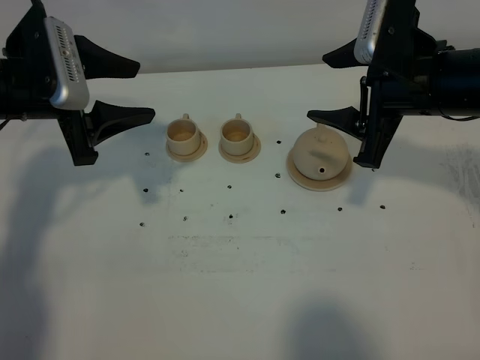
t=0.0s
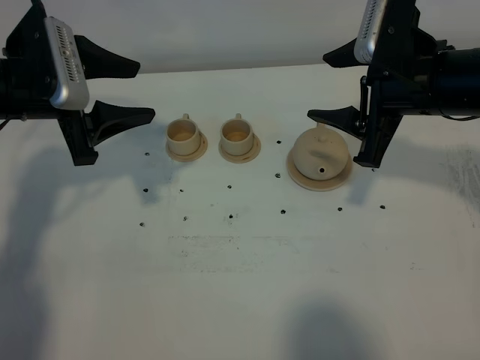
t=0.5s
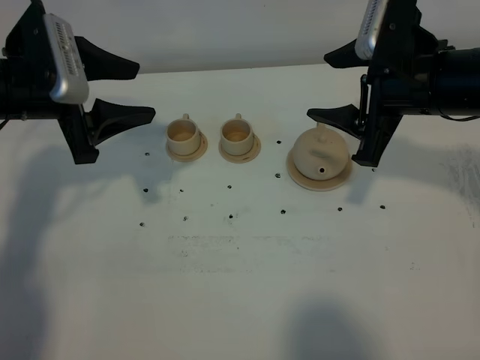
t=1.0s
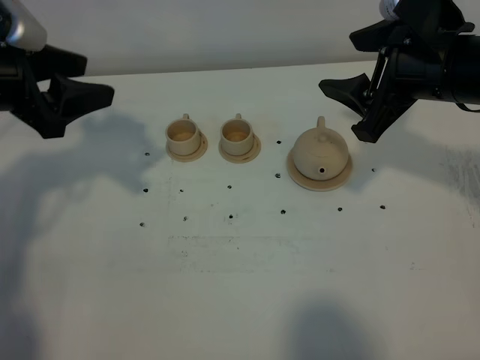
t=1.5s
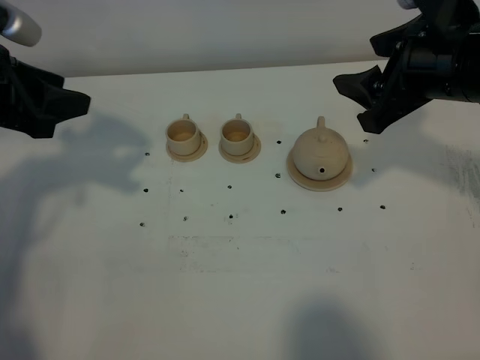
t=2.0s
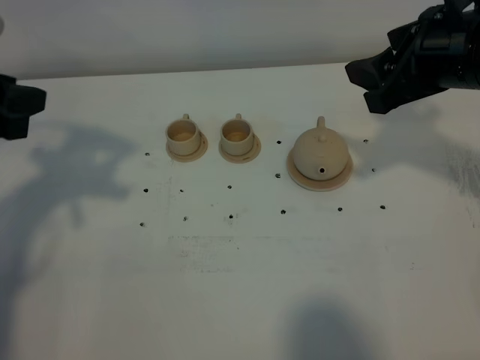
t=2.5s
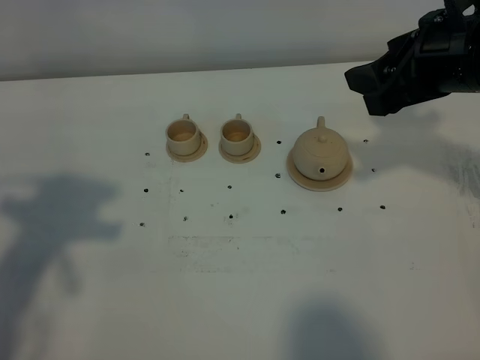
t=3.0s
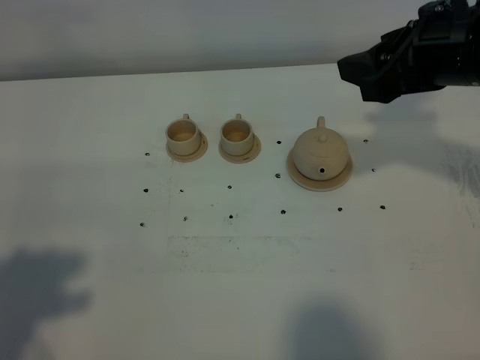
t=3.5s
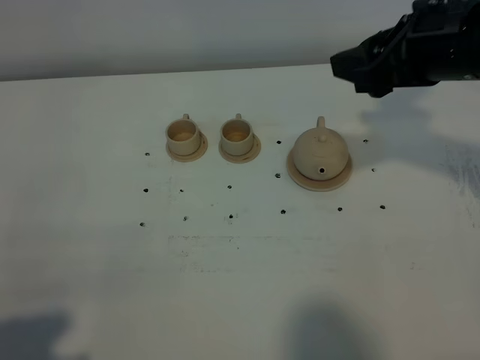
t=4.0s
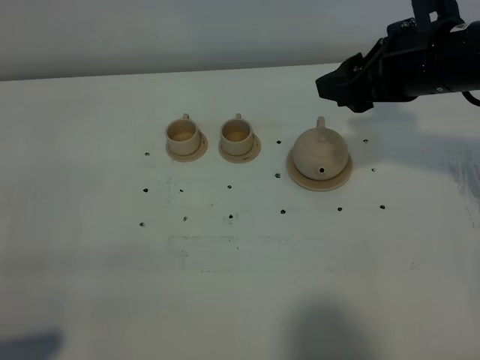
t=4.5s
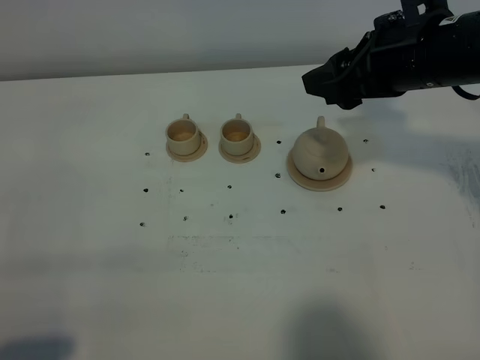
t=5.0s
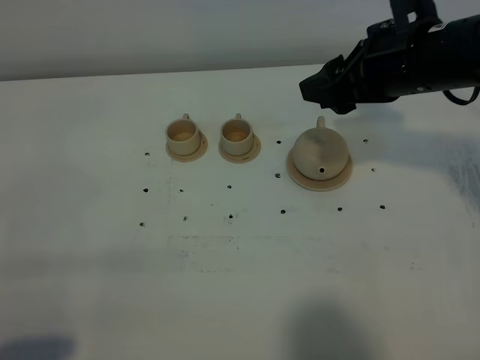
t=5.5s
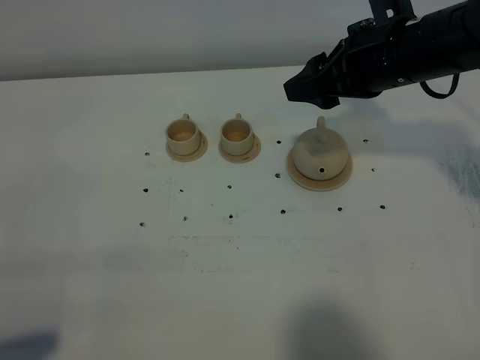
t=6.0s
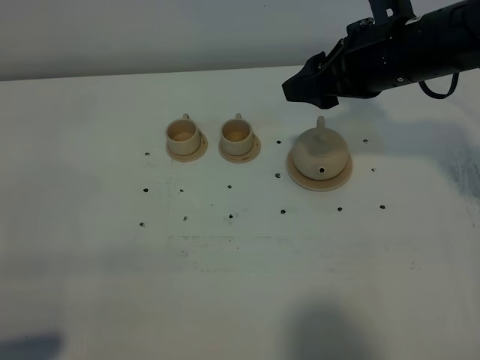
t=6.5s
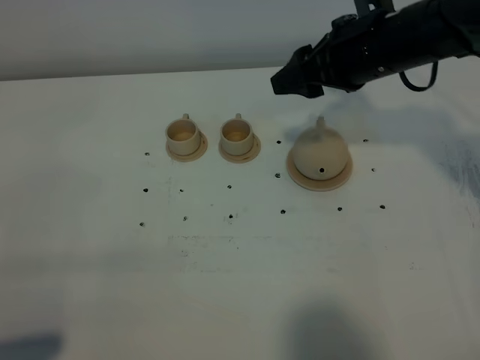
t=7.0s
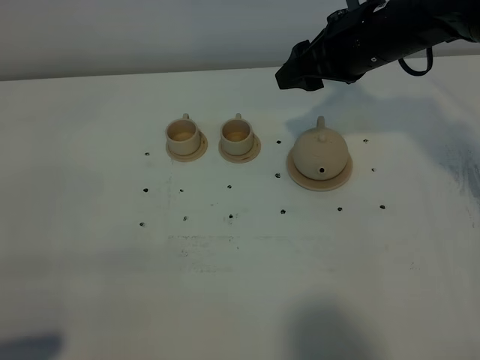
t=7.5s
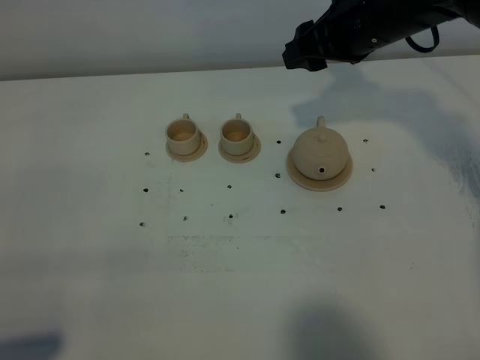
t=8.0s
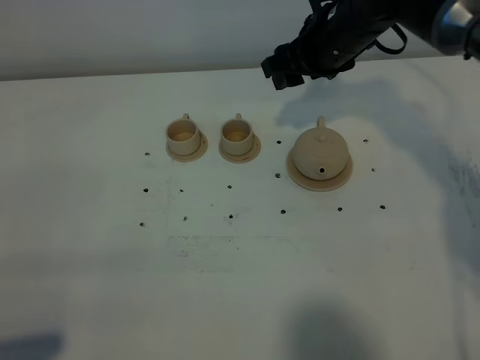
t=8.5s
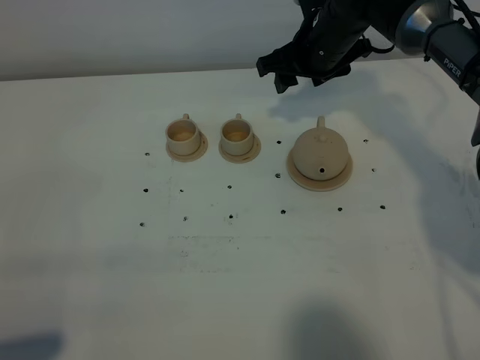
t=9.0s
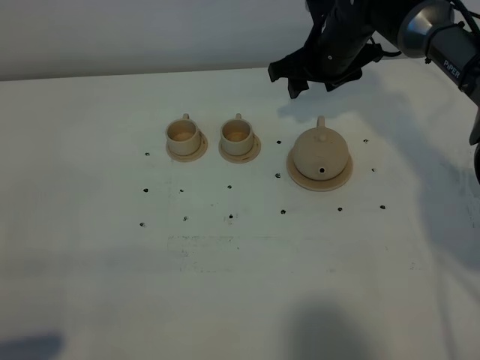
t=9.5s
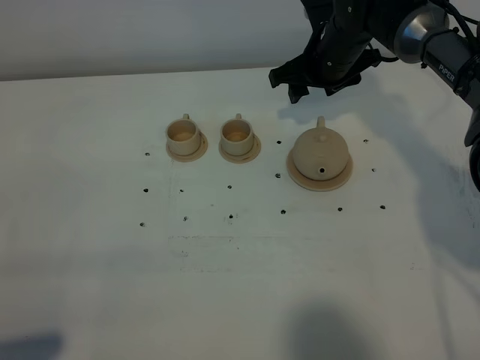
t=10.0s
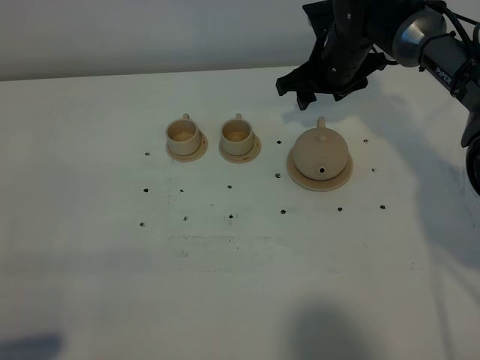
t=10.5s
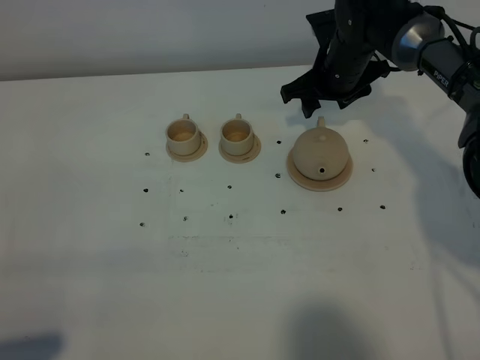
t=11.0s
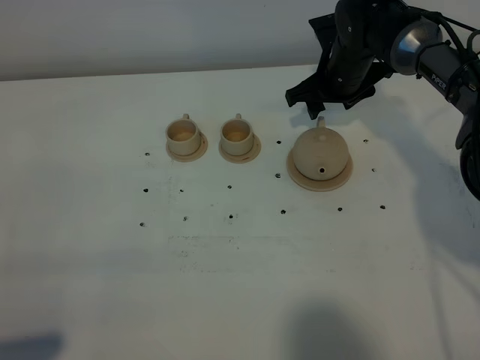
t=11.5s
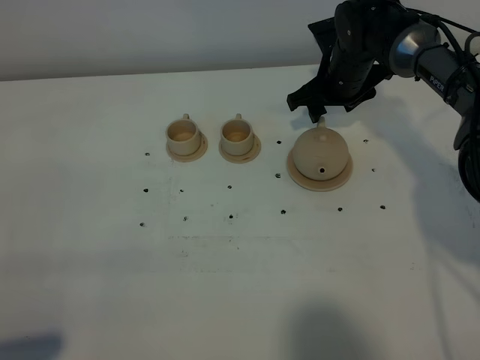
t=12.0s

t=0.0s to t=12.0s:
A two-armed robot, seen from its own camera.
Task of the whole recording: grasp the brown teapot and pour the tea into the two brown teacups one by one, put the brown teapot back in its original place.
t=0.0s to t=2.0s: The left gripper changes place by approximately 5 cm, and closes up.
t=2.0s to t=4.0s: The left gripper is displaced backward by approximately 30 cm, and closes its fingers.
t=4.0s to t=6.0s: The right gripper moves approximately 5 cm.
t=6.0s to t=8.0s: The right gripper travels forward by roughly 5 cm.
t=8.0s to t=10.0s: The right gripper travels downward and forward by roughly 10 cm.
t=10.0s to t=12.0s: The grippers move only a little.

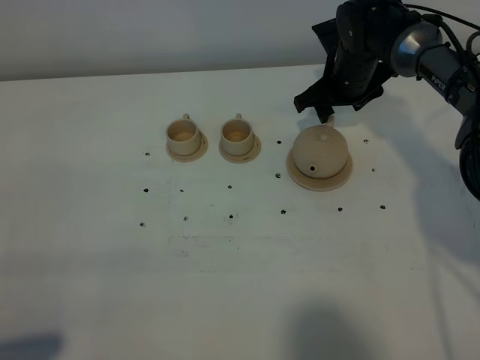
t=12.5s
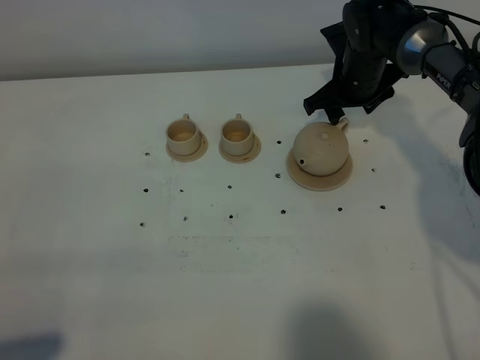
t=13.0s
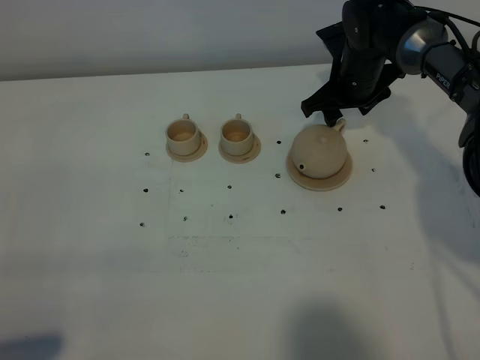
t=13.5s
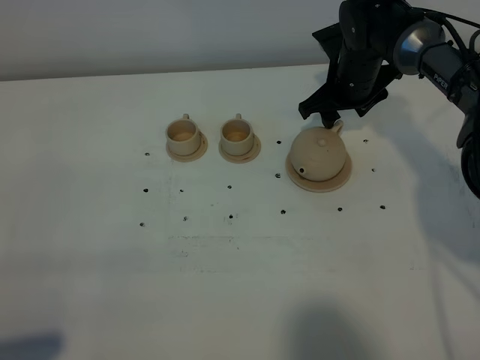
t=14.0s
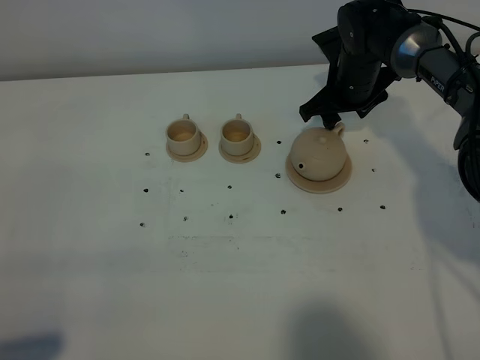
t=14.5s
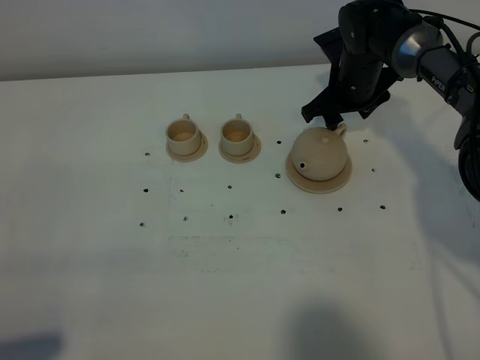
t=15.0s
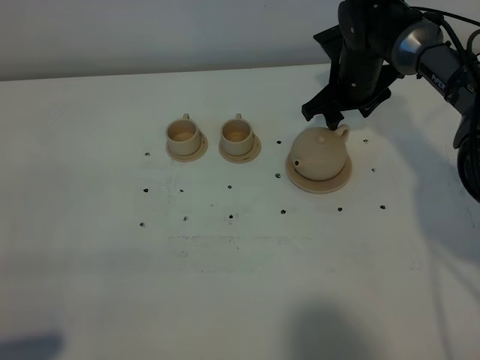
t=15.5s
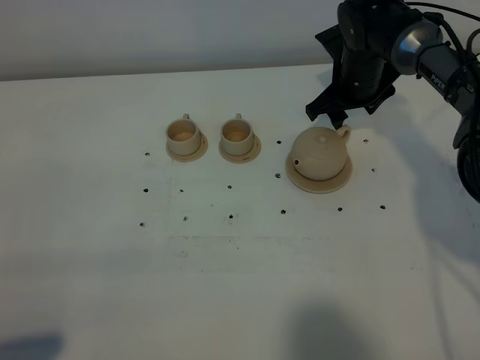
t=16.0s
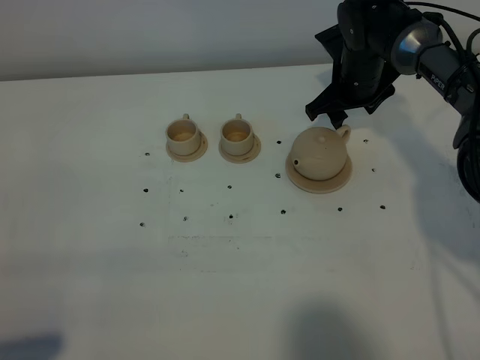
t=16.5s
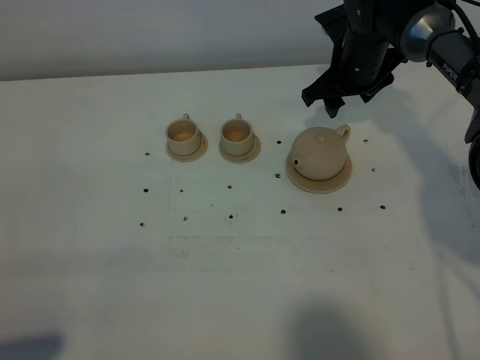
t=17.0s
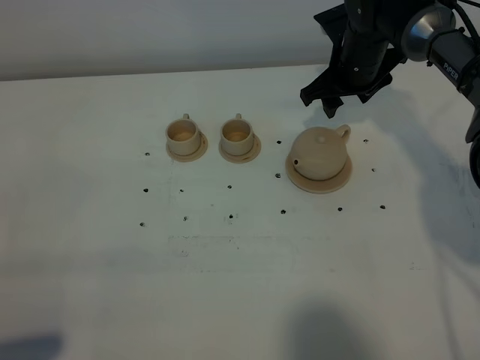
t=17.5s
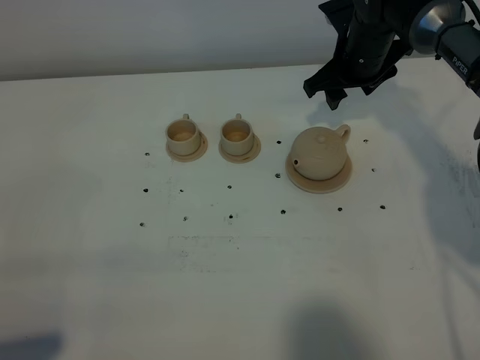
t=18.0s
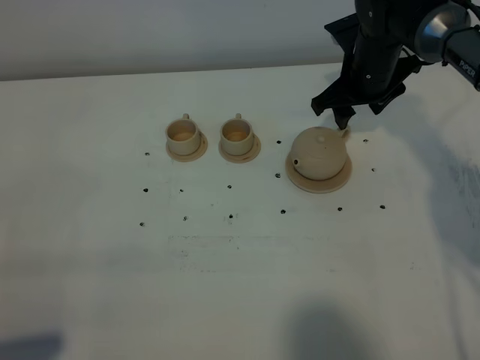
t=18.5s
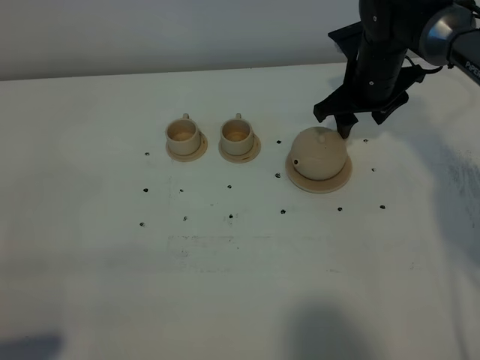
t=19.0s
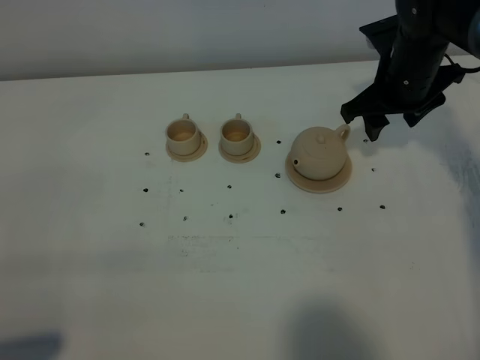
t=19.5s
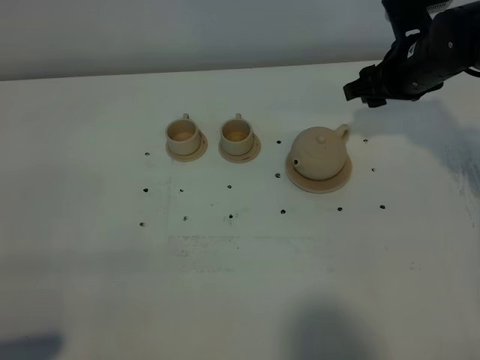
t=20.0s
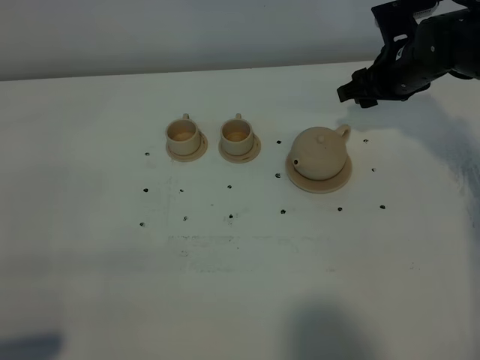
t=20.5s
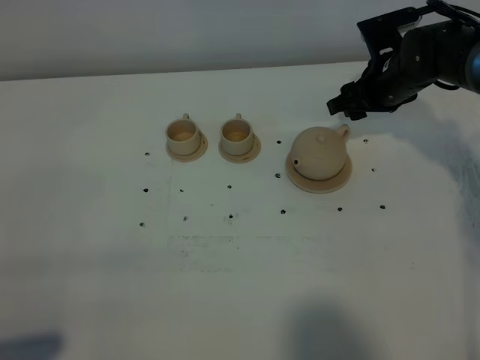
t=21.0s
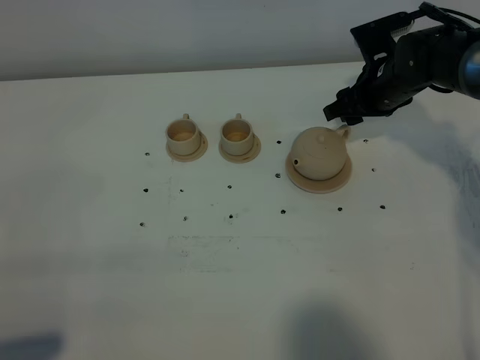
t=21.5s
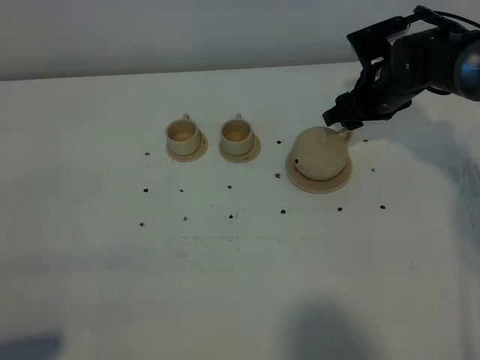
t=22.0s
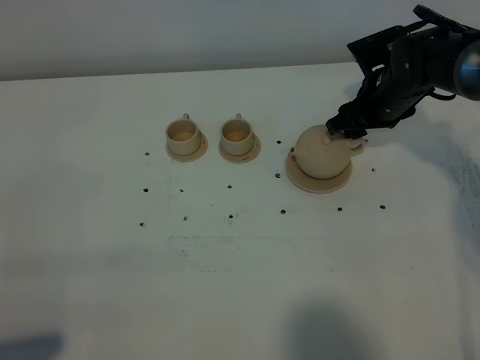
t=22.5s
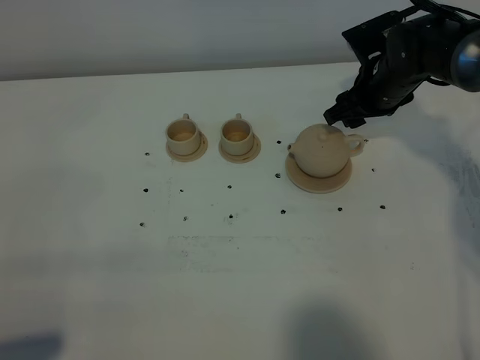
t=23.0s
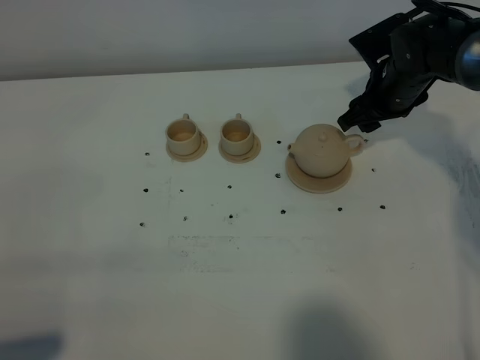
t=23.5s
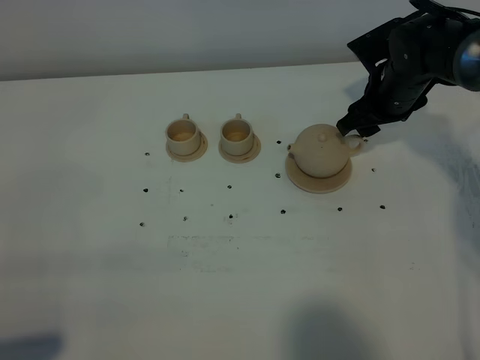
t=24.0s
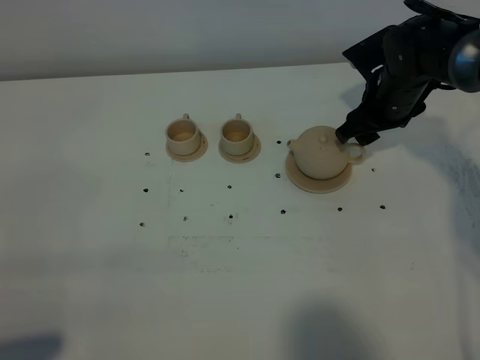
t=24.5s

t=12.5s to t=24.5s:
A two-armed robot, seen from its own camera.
Task of the whole recording: grasp the brown teapot and pour the tea into the two brown teacups one by one, put the brown teapot back in its original place.
t=12.5s to t=14.5s: There are only small adjustments of the grippers.
t=14.5s to t=16.5s: Both grippers stay put.
t=16.5s to t=18.5s: The grippers stay close to where they were, moving slightly.
t=20.5s to t=22.5s: The grippers stay close to where they were, moving slightly.
t=22.5s to t=24.5s: The grippers move only a little.

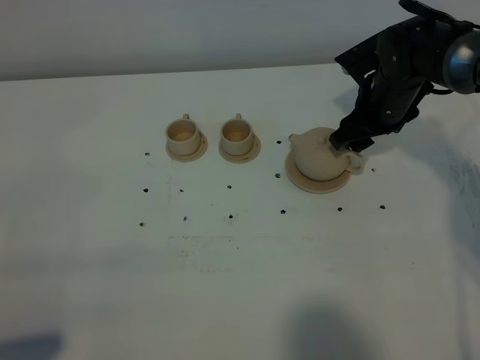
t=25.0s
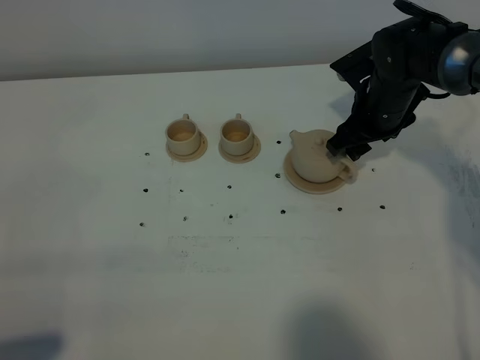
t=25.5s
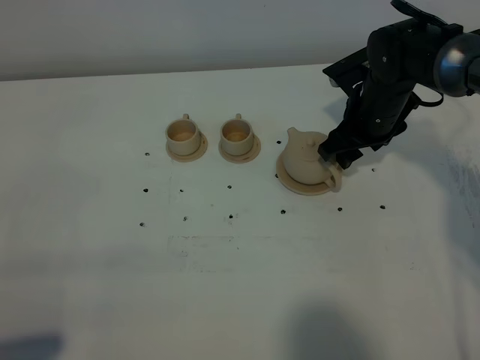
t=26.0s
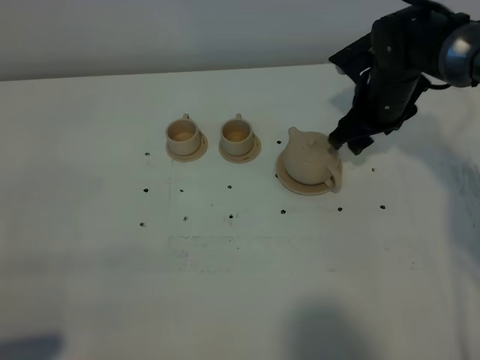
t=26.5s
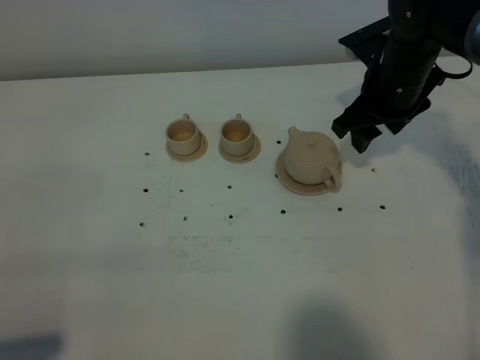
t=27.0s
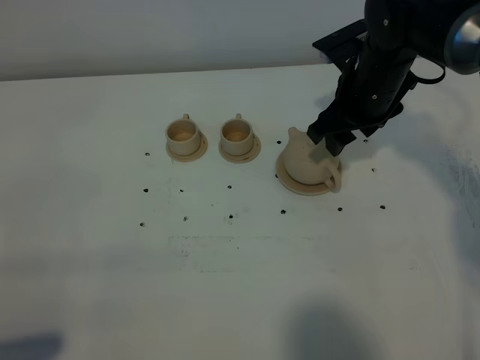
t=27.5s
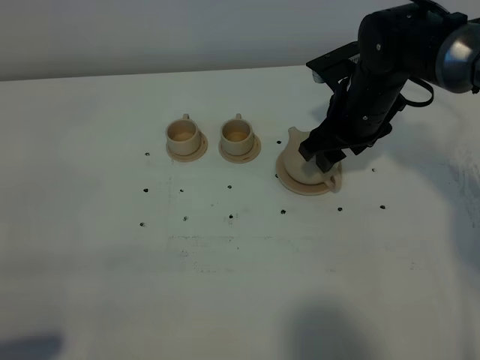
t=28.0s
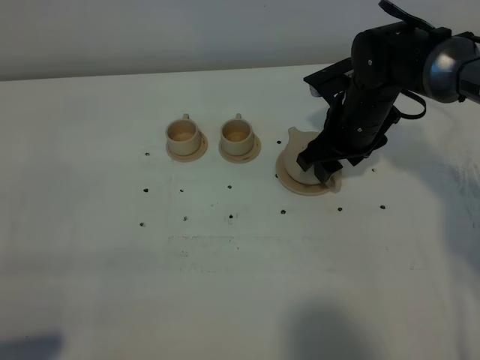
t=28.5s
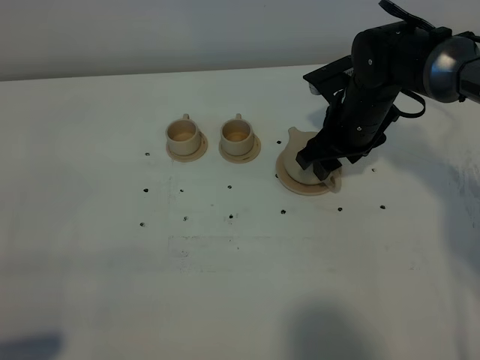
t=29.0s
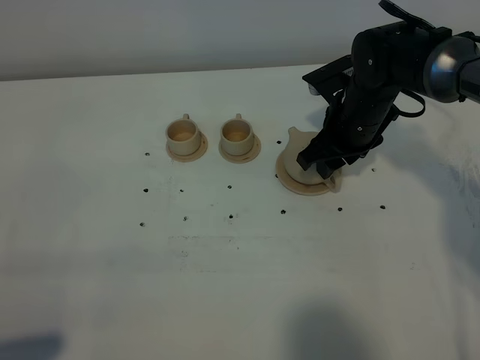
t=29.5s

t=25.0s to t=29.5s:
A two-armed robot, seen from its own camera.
Task of the whole recording: grasp the brown teapot and pour the tea into the two brown teacups one by one, put the brown teapot back in its original place.
t=25.0s to t=27.0s: The right gripper is displaced upward by about 5 cm.
t=27.0s to t=29.5s: The right gripper travels downward by some 5 cm.
